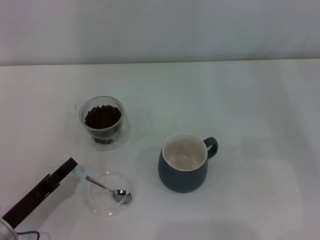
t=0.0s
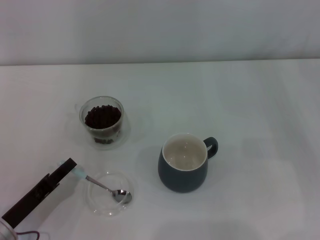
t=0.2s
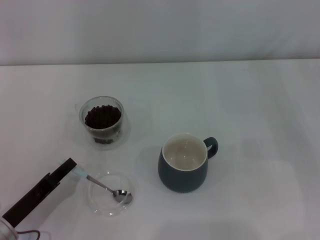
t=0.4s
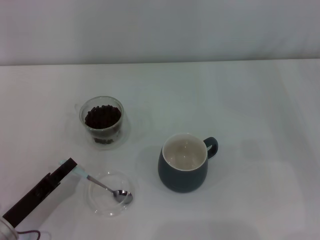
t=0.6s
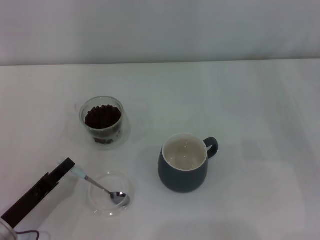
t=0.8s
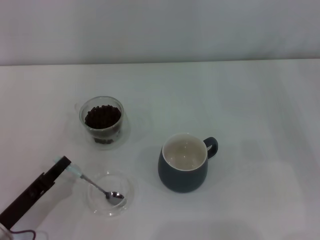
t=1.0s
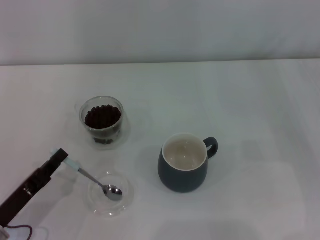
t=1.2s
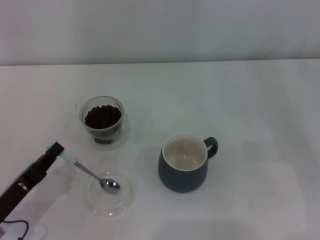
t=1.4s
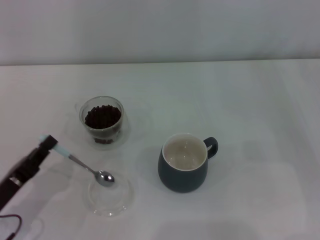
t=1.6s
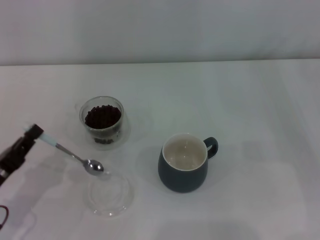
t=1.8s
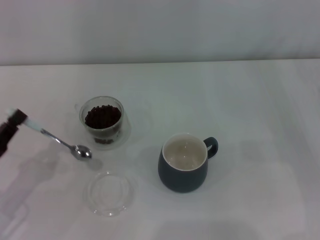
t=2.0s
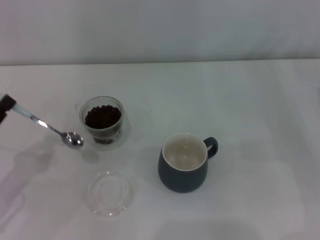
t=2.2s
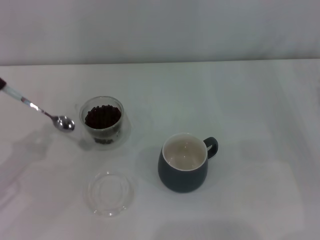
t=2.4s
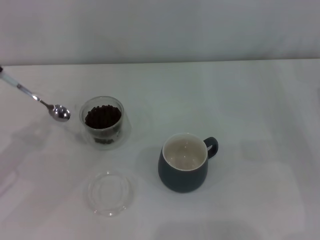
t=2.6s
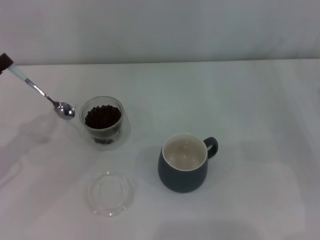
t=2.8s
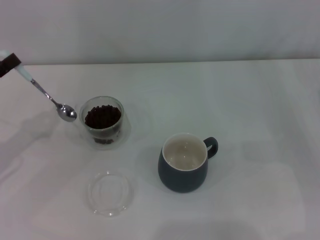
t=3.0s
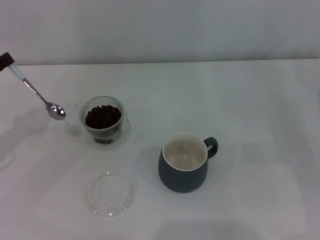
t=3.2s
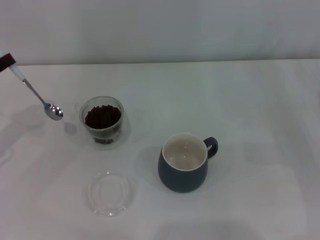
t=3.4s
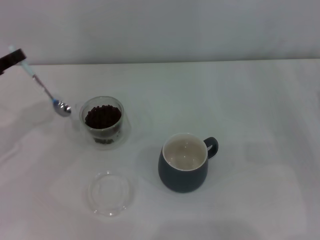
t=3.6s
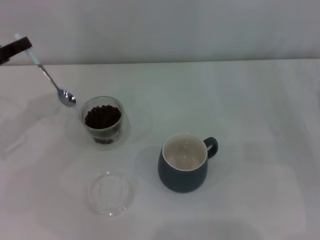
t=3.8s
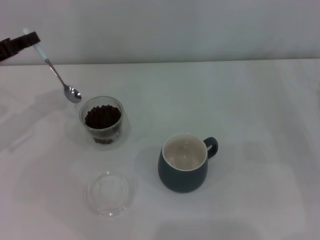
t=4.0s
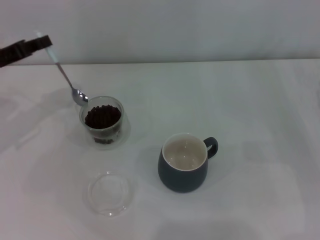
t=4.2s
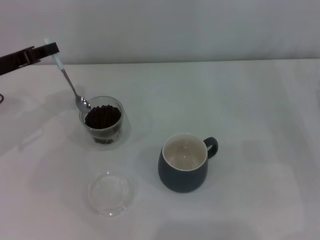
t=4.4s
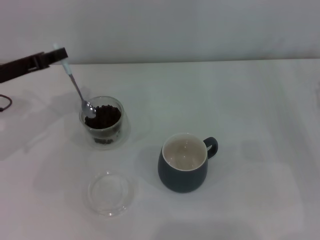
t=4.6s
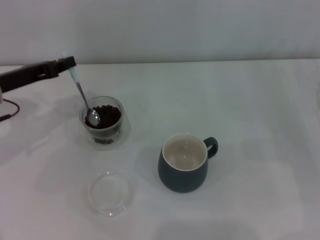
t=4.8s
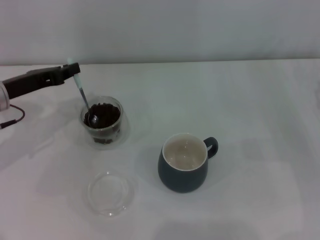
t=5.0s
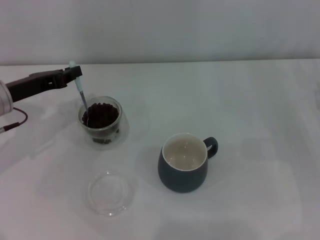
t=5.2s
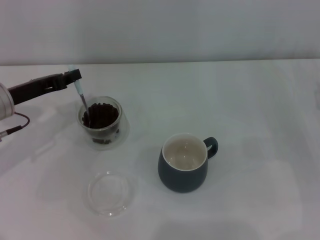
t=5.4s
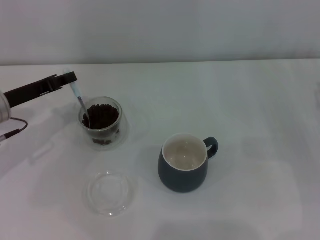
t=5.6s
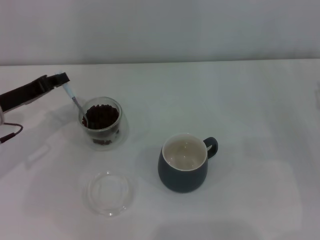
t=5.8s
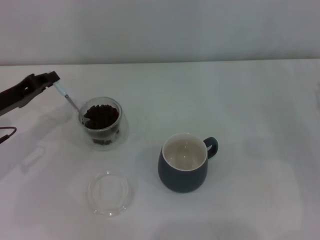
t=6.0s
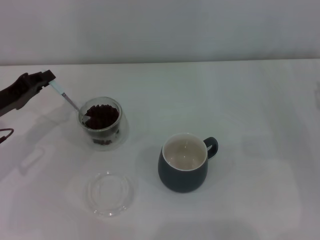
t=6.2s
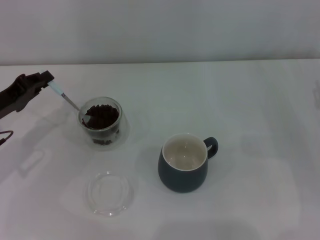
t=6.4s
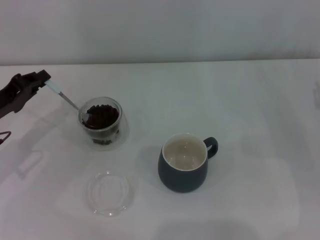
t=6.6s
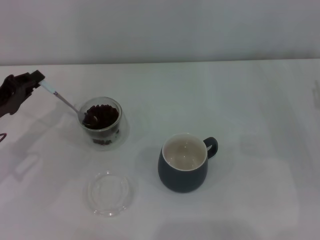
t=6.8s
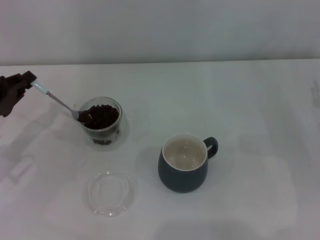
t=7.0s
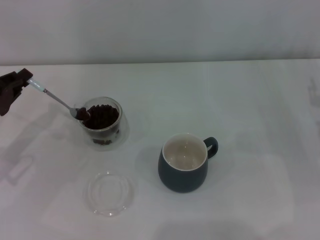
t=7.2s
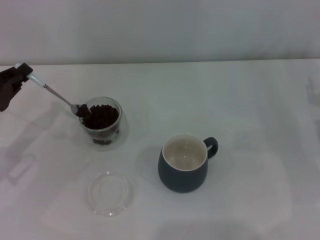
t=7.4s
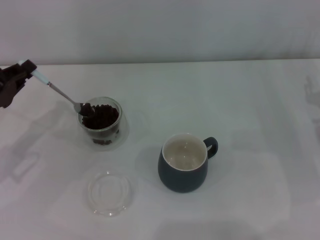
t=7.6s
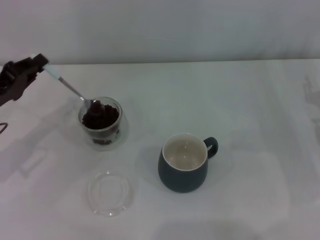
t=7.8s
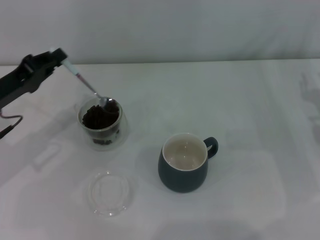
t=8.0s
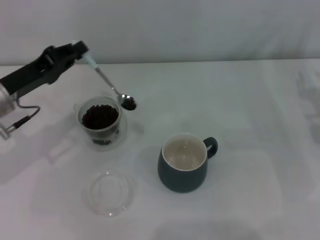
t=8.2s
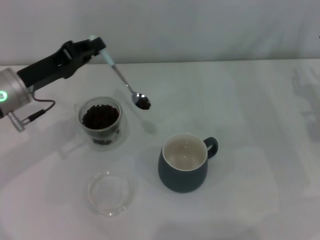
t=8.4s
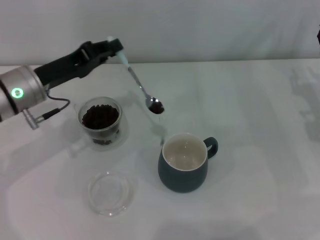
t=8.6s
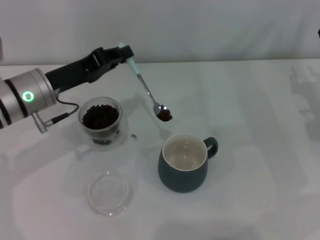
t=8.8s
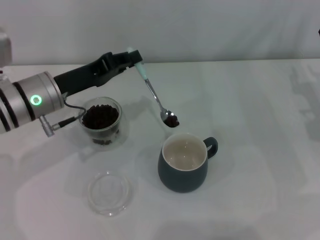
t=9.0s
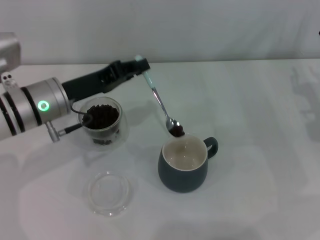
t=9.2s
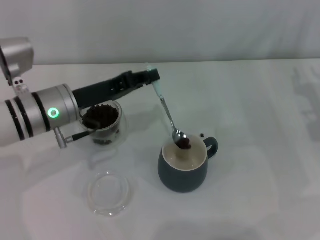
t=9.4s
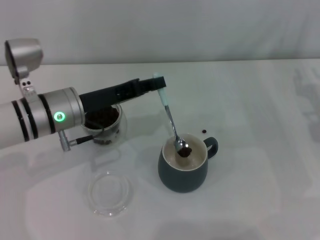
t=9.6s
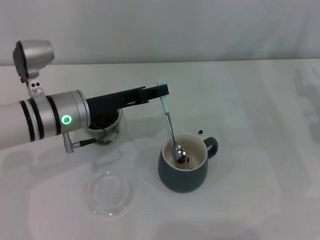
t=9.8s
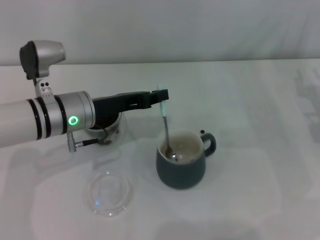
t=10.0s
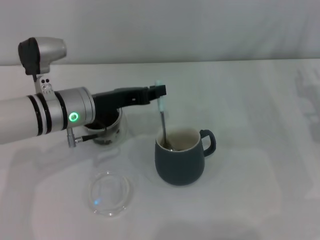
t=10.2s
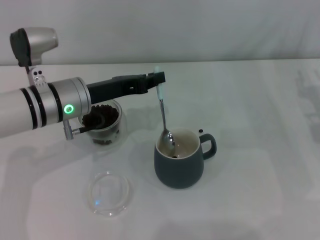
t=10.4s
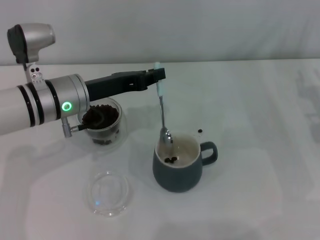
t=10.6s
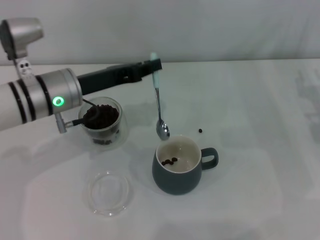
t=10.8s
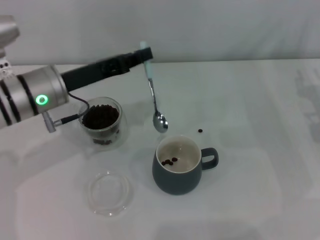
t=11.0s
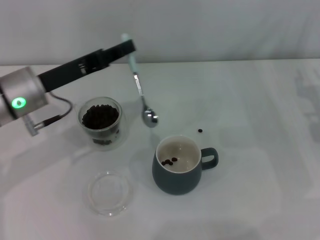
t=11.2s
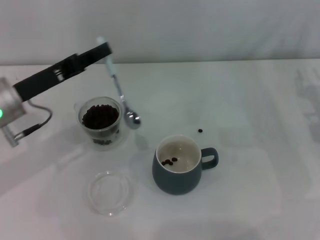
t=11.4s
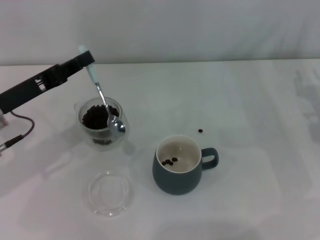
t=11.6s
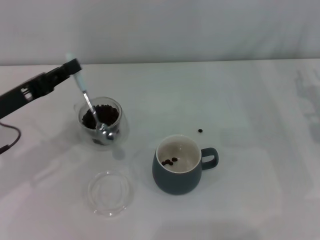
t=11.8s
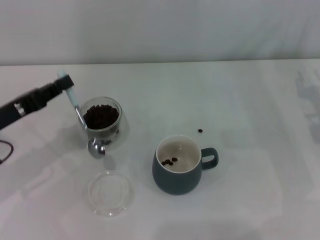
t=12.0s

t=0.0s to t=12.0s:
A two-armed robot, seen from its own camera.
Task of the whole recording: Use a blue spoon to take out the coffee beans from the glass and pour them into the gray cup.
t=0.0s to t=1.6s: The left gripper closes.
t=1.6s to t=3.0s: The left gripper heads forward, upward and to the left, covering some 15 cm.
t=3.0s to t=4.4s: The left gripper is displaced forward by approximately 10 cm.
t=4.4s to t=6.0s: The left gripper shifts some 5 cm downward.
t=6.0s to t=7.6s: There are only small adjustments of the grippers.
t=7.6s to t=9.0s: The left gripper travels to the right by roughly 10 cm.
t=10.4s to t=12.0s: The left gripper shifts about 15 cm to the left and backward.

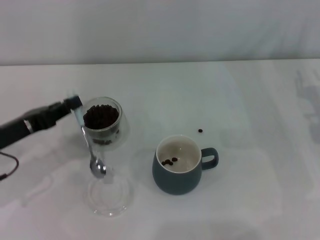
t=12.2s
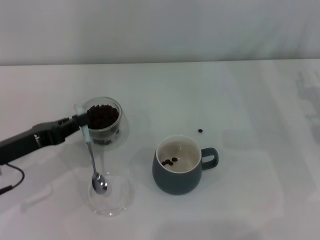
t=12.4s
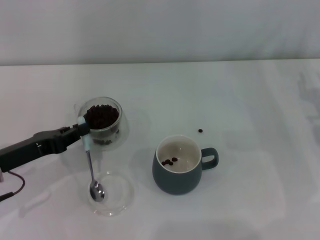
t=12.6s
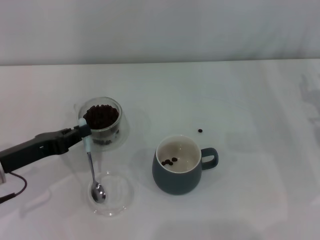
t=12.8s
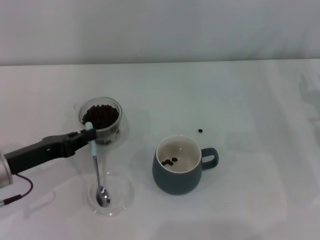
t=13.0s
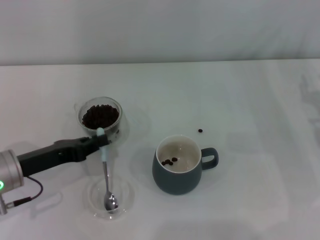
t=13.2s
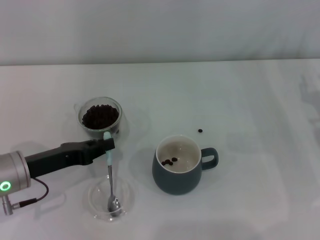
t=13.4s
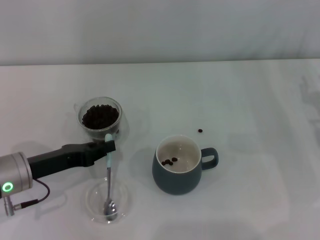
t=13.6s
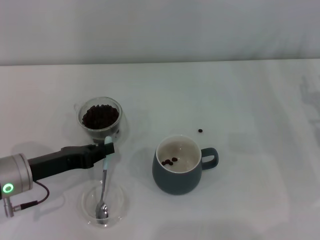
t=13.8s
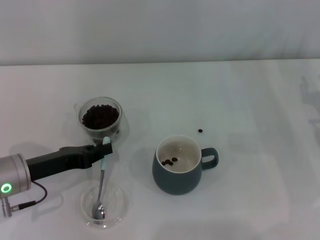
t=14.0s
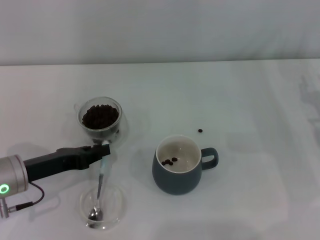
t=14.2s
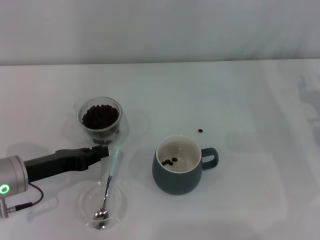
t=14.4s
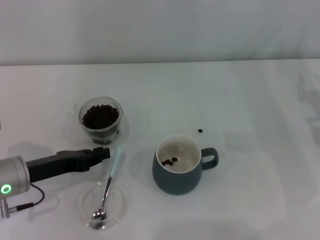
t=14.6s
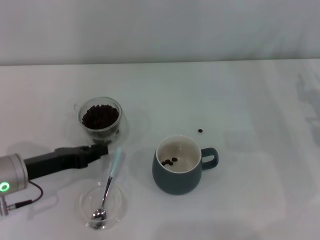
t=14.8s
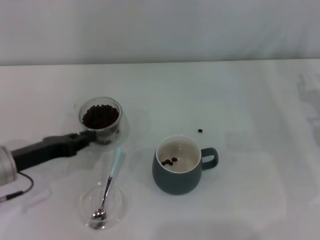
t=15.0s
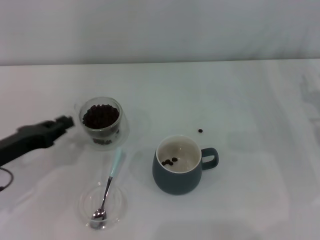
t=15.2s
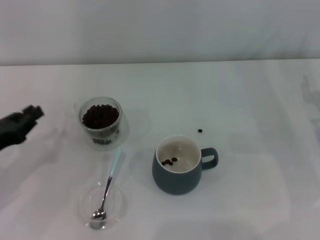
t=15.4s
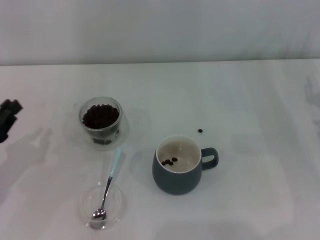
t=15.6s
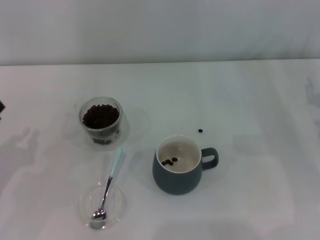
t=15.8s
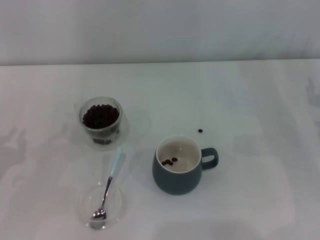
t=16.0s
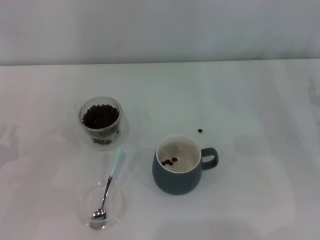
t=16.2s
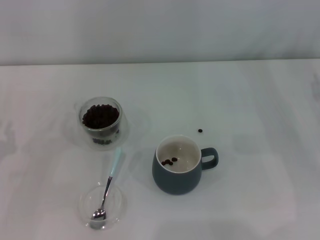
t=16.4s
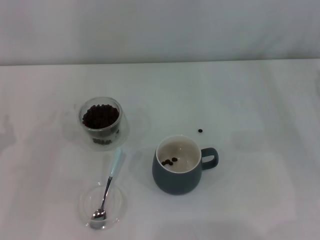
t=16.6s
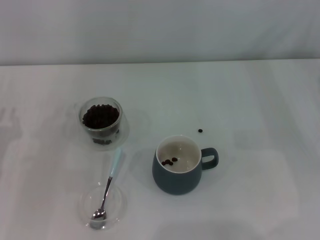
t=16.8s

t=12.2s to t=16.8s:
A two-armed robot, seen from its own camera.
Task of the whole recording: Use a blue spoon to take out the coffee beans from the glass and pour them into the gray cup.
Step, t=12.2s to t=14.8s: Place the spoon back in its original place with the right gripper.
t=12.2s to t=13.8s: The left gripper changes place by some 5 cm.
t=13.8s to t=15.2s: The grippers make only small movements.

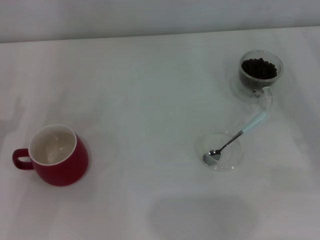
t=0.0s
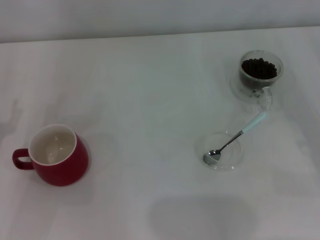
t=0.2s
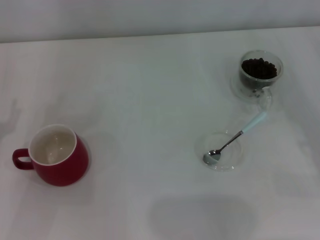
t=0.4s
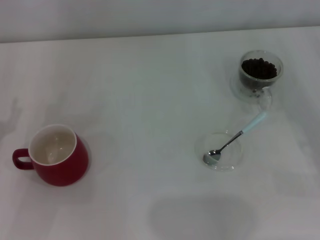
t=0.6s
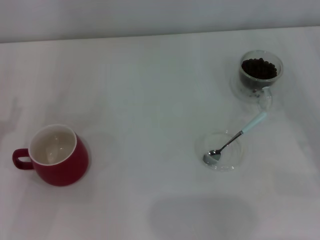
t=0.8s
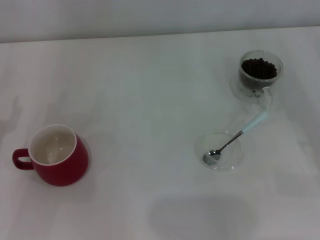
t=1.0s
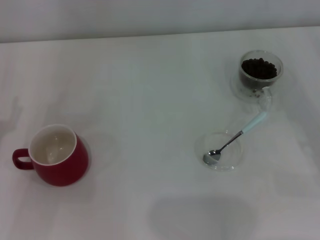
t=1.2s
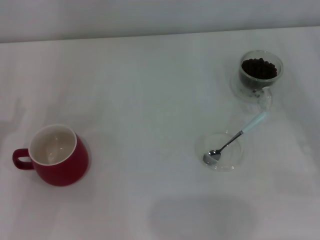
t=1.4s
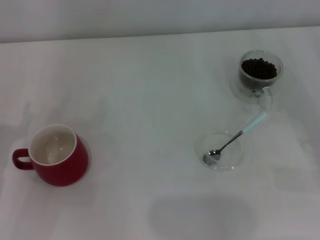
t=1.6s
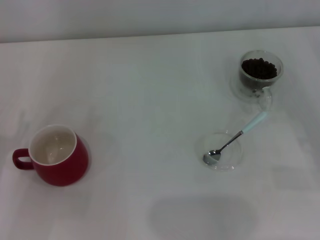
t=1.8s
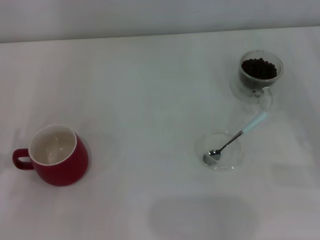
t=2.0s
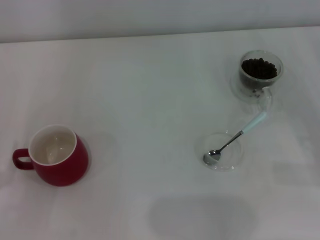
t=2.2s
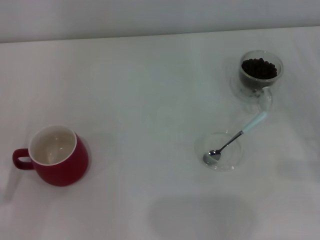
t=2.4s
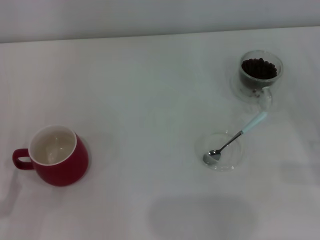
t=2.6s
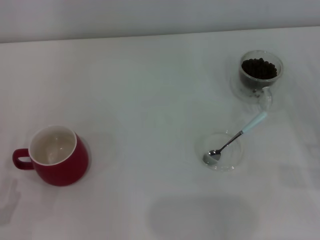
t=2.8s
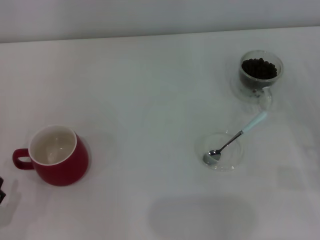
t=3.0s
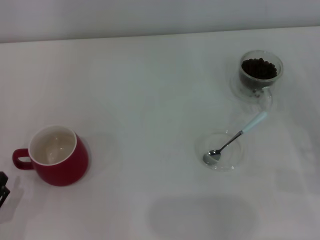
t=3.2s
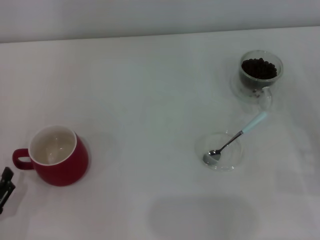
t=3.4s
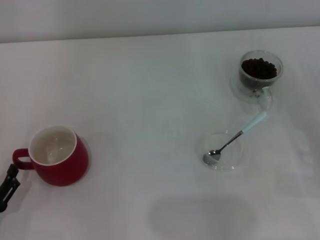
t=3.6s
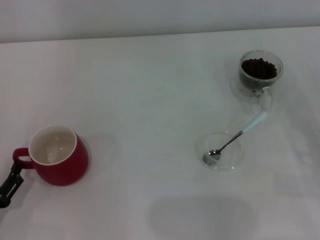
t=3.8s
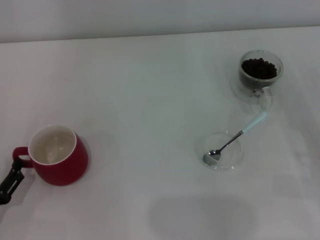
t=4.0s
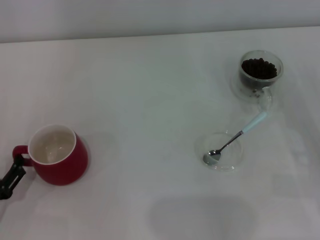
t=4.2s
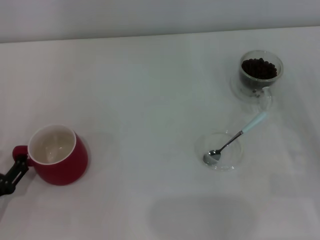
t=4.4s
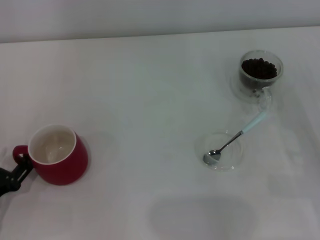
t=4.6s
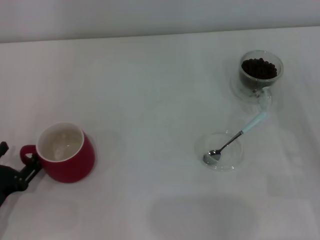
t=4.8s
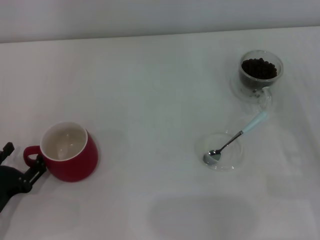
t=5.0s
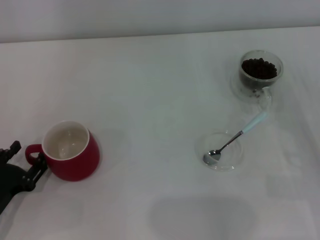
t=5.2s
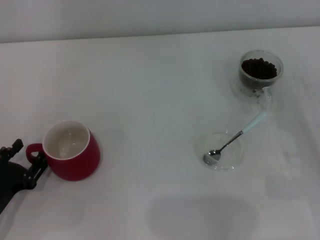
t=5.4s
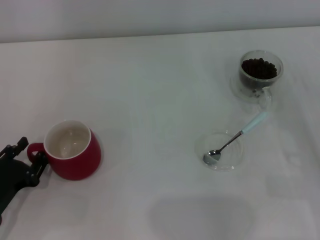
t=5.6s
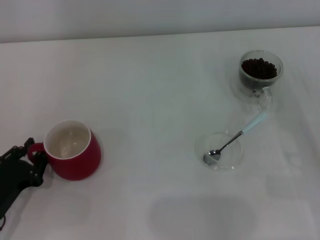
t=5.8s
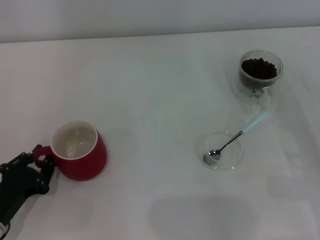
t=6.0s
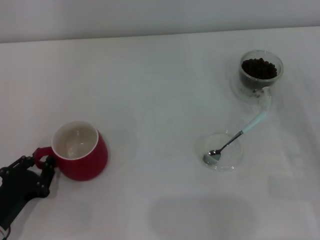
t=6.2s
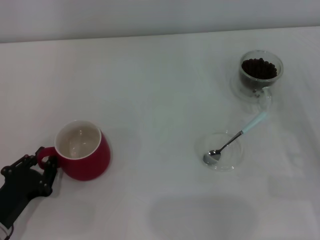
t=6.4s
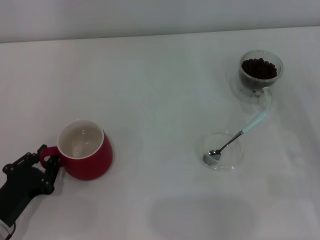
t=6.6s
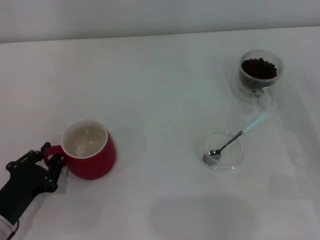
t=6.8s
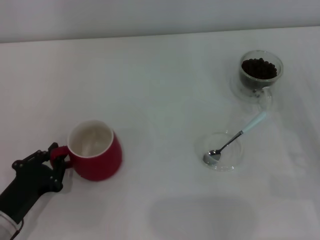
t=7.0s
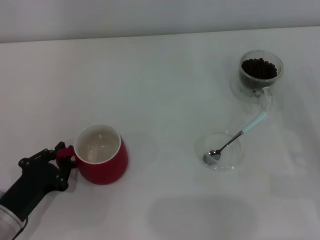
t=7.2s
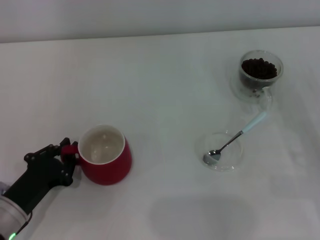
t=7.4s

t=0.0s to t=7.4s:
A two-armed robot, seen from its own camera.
Task of the whole recording: Use a blue spoon to take out the coffee beans from the glass and pour them into the red cup.
t=0.0s to t=1.4s: Both grippers stay put.
t=3.0s to t=4.4s: The left gripper is displaced forward by about 5 cm.
t=4.4s to t=6.0s: The left gripper closes its fingers.
t=6.0s to t=7.4s: The grippers make only small movements.
